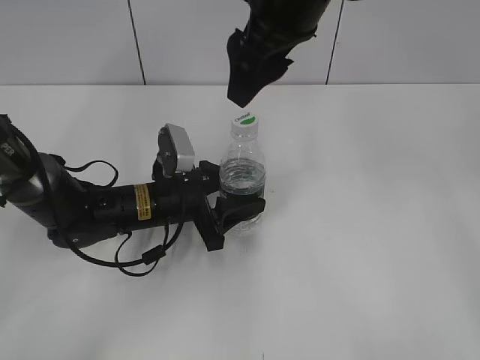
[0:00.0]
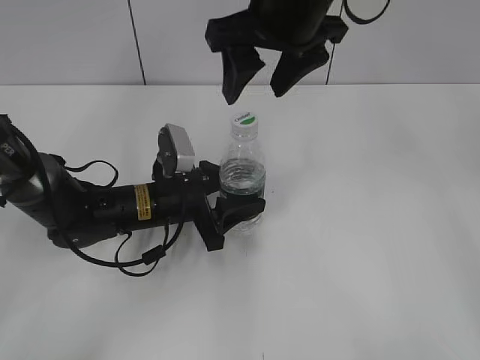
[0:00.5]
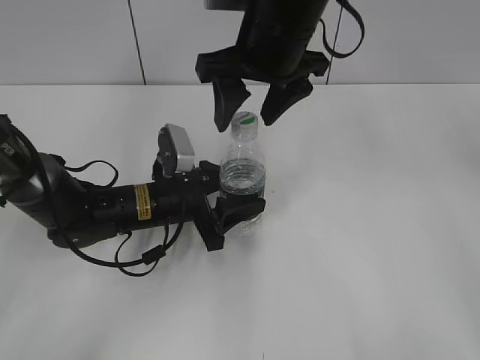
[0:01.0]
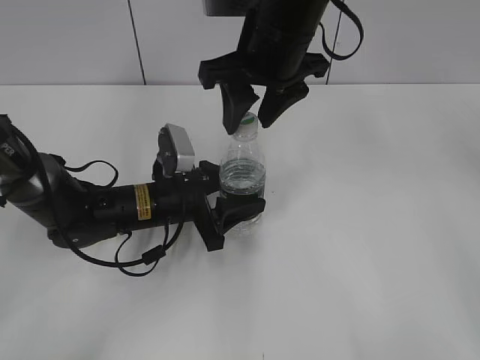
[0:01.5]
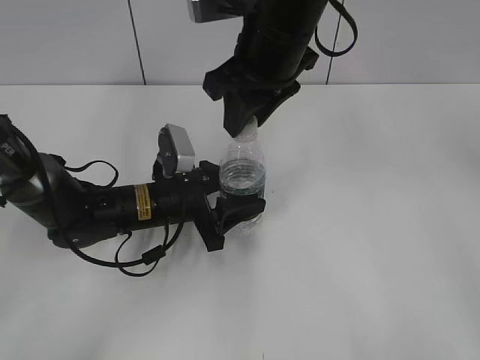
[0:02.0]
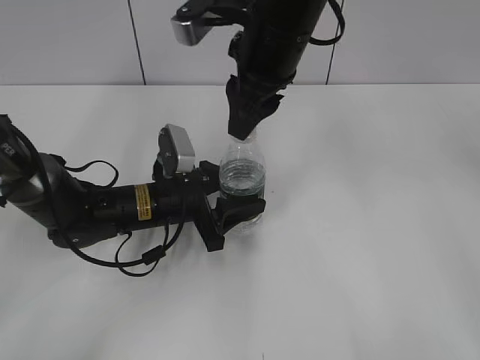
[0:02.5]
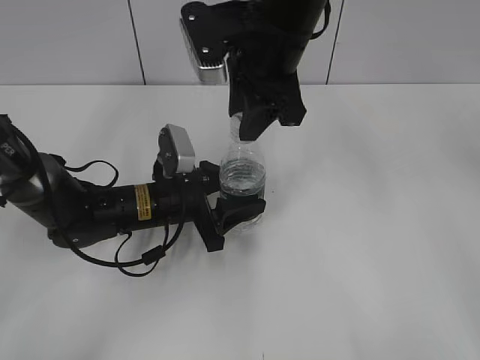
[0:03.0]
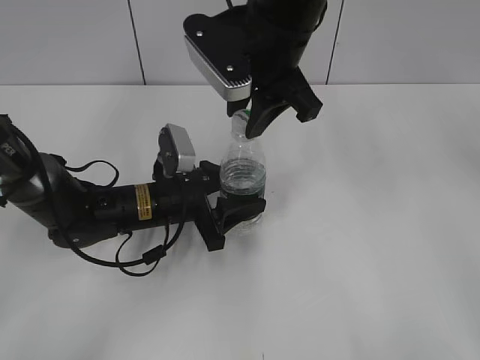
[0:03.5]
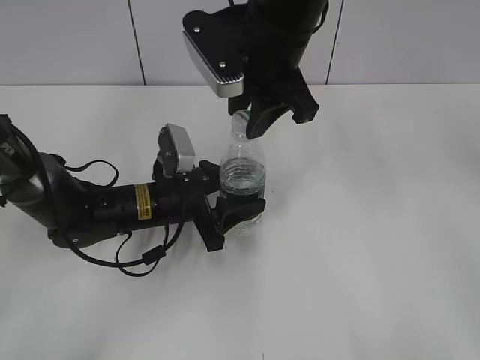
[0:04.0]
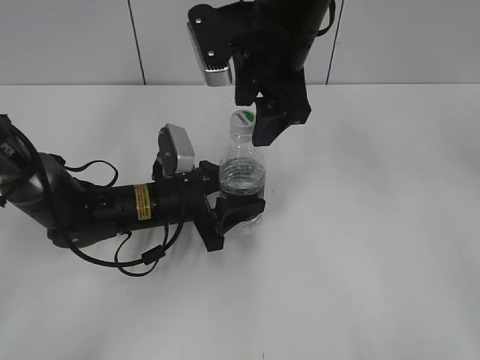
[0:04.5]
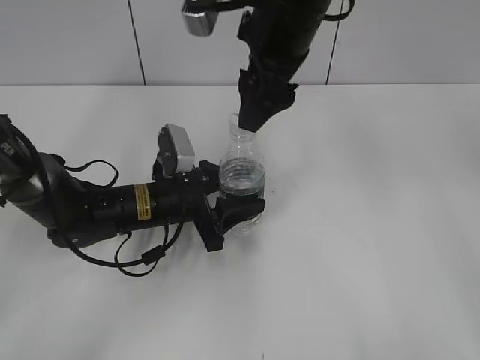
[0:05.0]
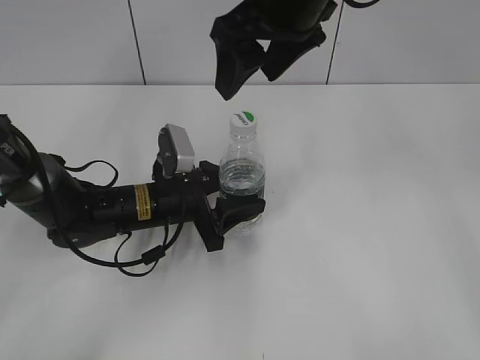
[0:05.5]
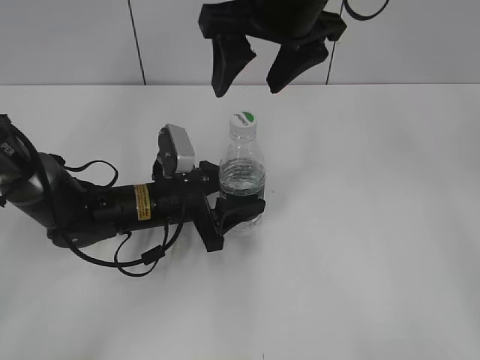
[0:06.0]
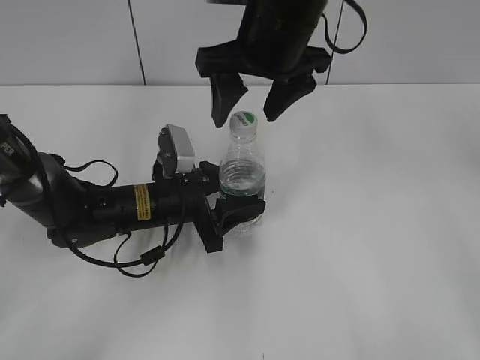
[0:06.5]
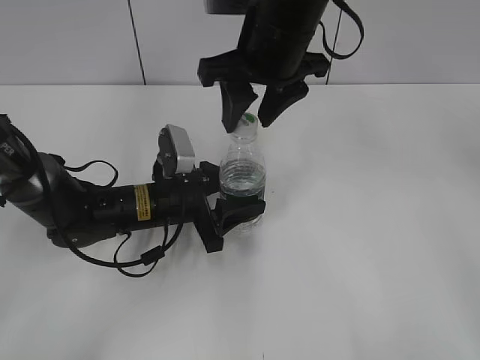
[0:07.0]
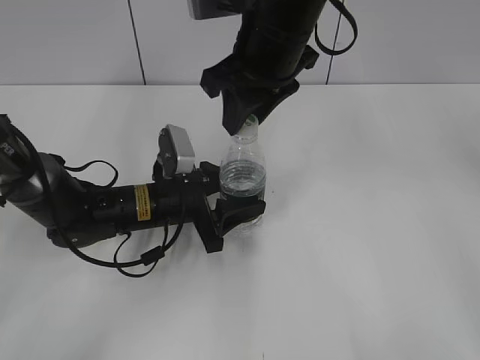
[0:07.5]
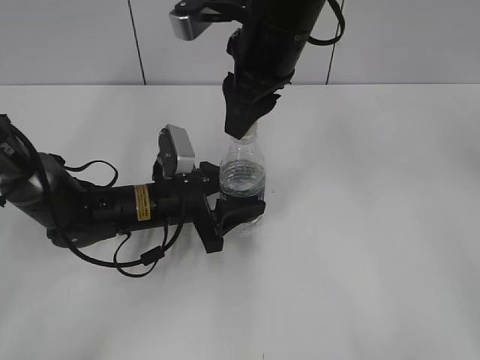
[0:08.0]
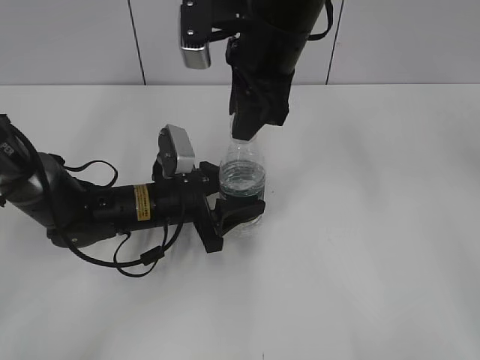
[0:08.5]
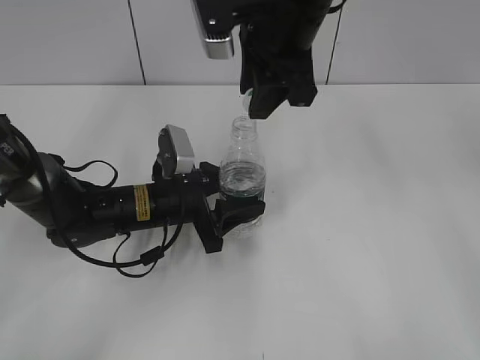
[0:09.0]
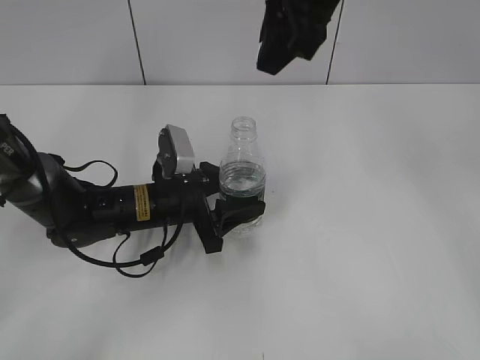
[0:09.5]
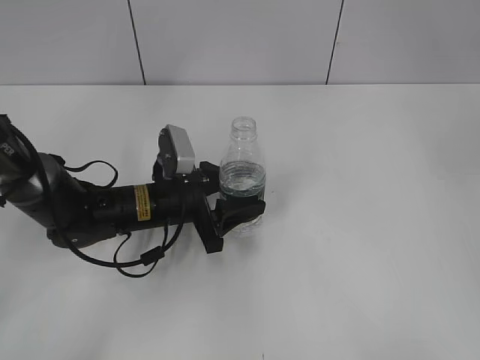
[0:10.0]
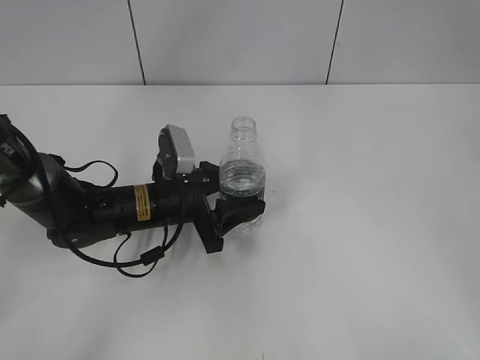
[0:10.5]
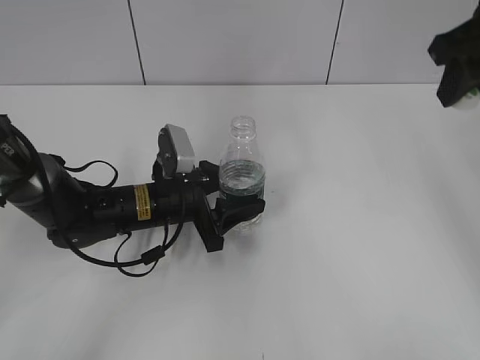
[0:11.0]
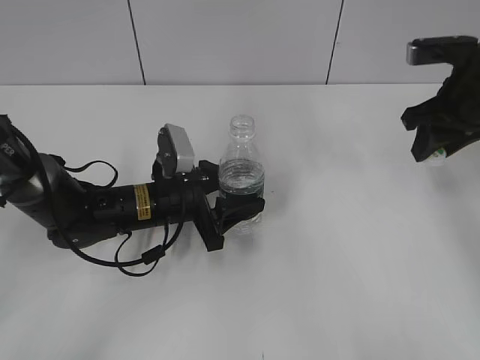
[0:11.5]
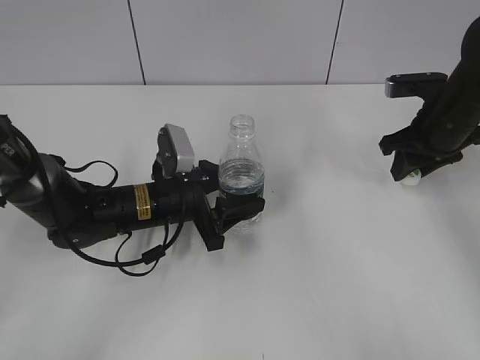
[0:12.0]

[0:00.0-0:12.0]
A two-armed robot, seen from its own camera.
Step, 0:00.0 to 0:09.0: Unscrew the bottle cap with the right gripper while holding the bottle with the left gripper.
0:00.0 to 0:02.0: The right gripper is displaced downward by roughly 5 cm, and closes up.
0:04.0 to 0:06.0: The right gripper moves some 5 cm, and opens up.
0:06.0 to 0:08.0: The right gripper moves approximately 5 cm, and closes.
0:08.0 to 0:10.0: The right gripper moves upward and to the right, some 15 cm.
0:10.0 to 0:12.0: The right gripper goes roughly 30 cm downward and to the right.

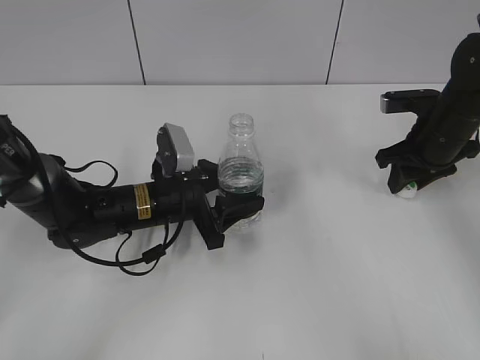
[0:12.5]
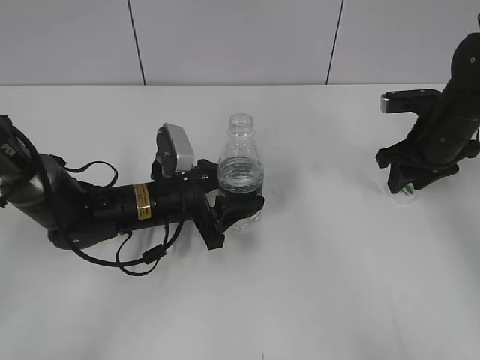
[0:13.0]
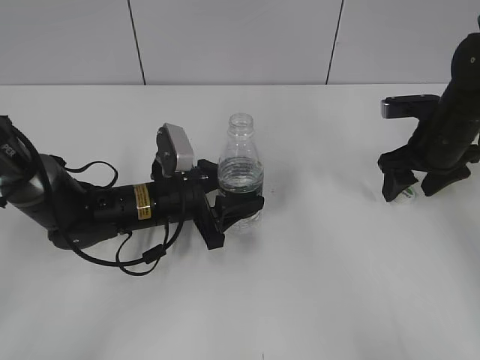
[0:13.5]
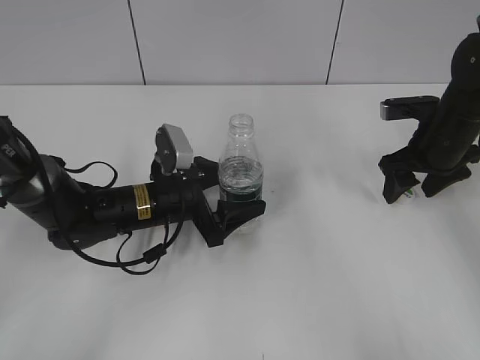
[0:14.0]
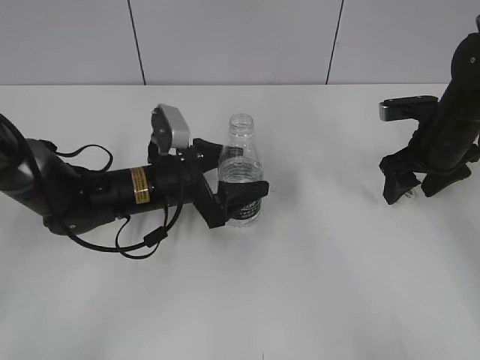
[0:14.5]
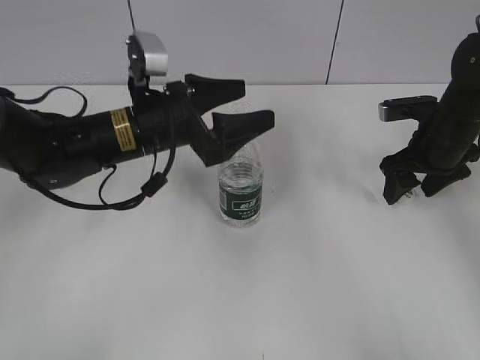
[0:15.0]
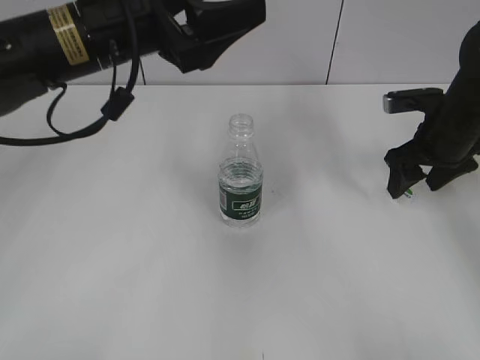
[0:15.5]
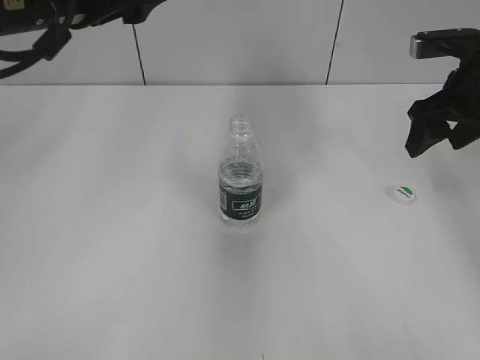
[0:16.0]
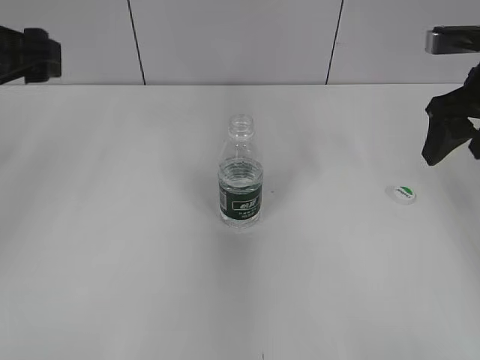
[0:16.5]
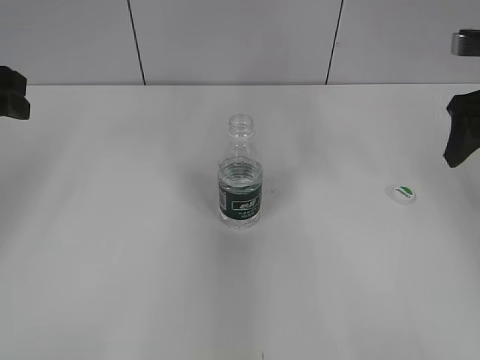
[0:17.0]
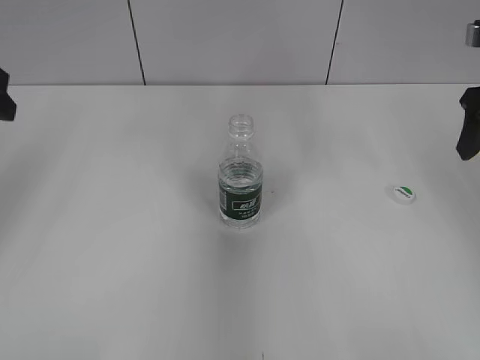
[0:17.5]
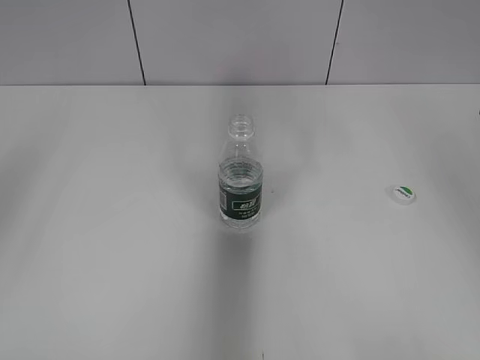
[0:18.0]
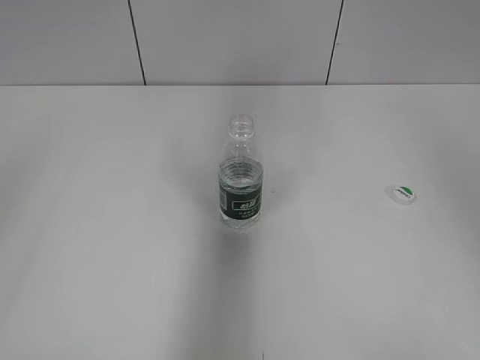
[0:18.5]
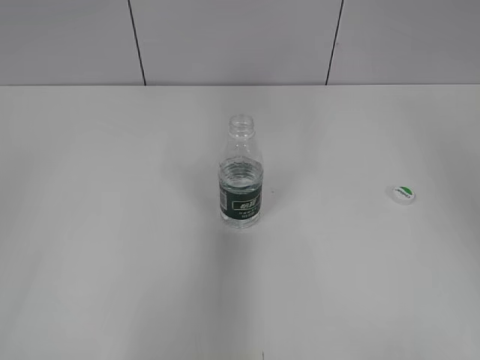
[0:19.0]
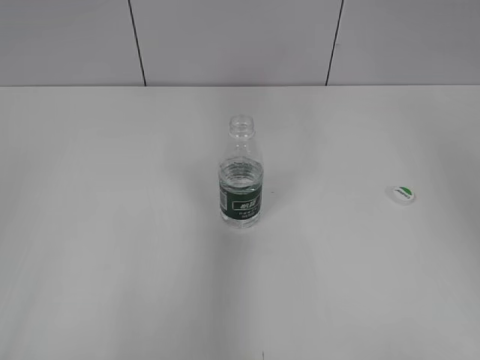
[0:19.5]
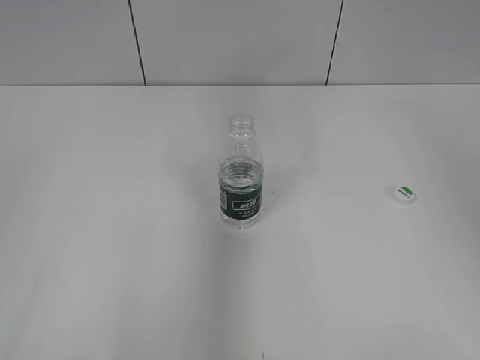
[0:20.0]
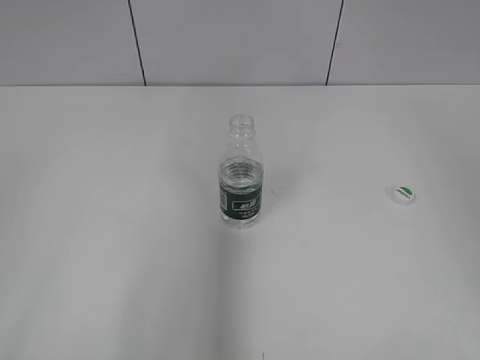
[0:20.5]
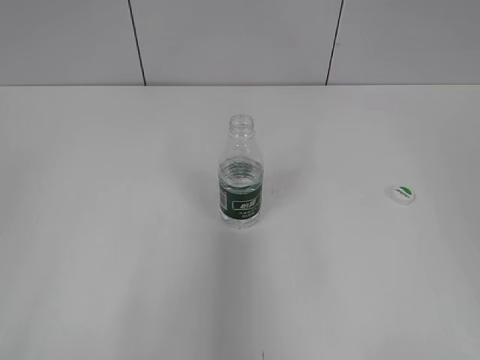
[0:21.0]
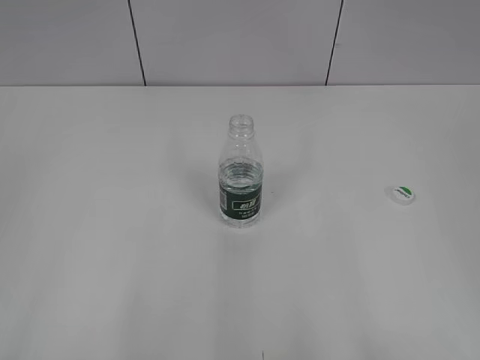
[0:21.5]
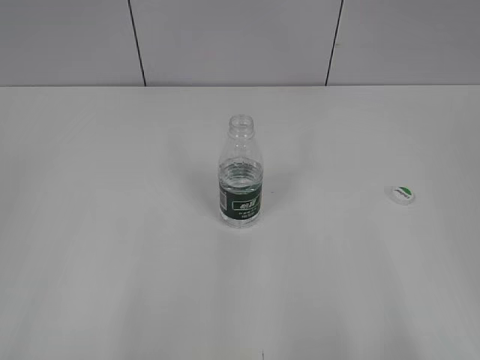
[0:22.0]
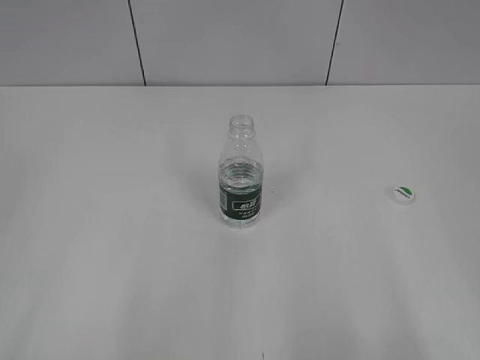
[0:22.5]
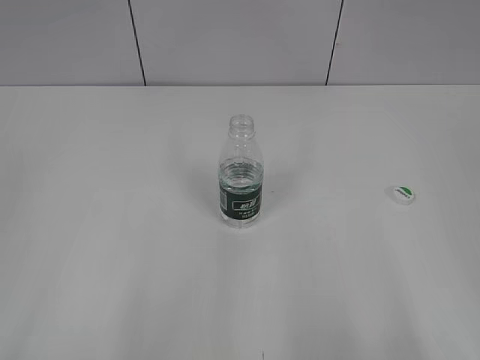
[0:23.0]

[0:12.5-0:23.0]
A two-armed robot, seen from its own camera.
Step, 0:13.5 to 0:14.5: Place the bottle on the table with the left gripper.
0:12.5 to 0:14.5: The left gripper opens; the right gripper opens.
0:14.5 to 0:16.5: The right gripper travels upward by roughly 10 cm. Meanwhile the left gripper travels upward and to the left by approximately 25 cm.
0:16.5 to 0:19.0: The right gripper is displaced upward and backward by roughly 15 cm. The left gripper heads backward, covering some 30 cm, and closes its fingers.
0:21.0 to 0:23.0: The right gripper moves downward, about 10 cm.
